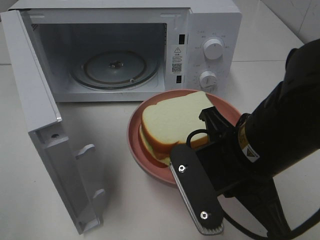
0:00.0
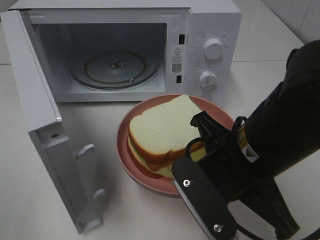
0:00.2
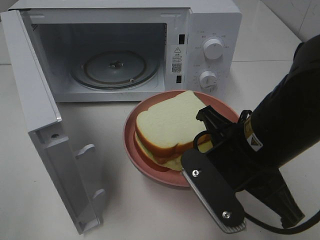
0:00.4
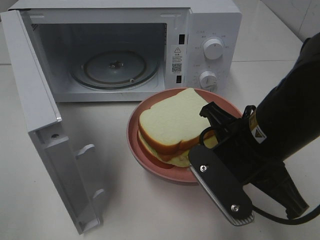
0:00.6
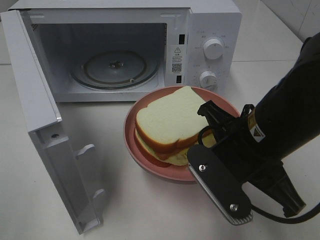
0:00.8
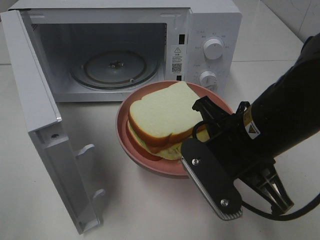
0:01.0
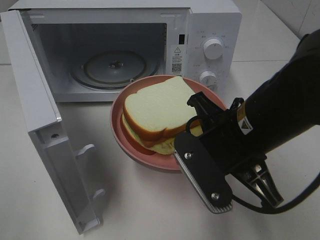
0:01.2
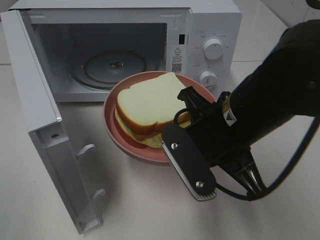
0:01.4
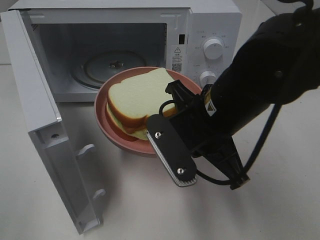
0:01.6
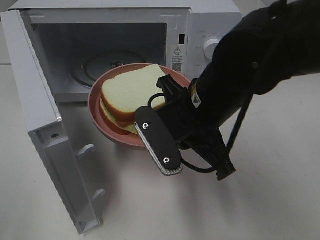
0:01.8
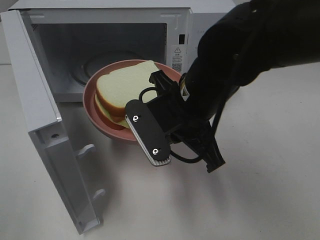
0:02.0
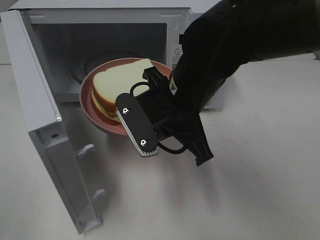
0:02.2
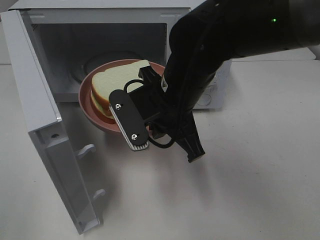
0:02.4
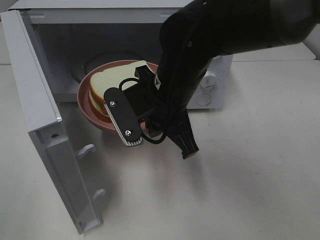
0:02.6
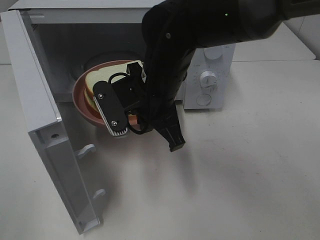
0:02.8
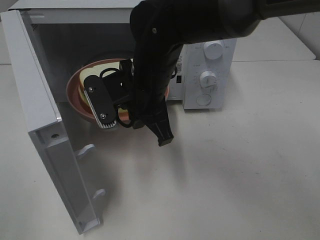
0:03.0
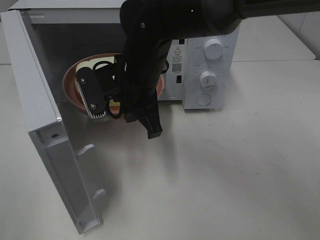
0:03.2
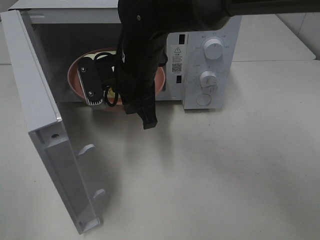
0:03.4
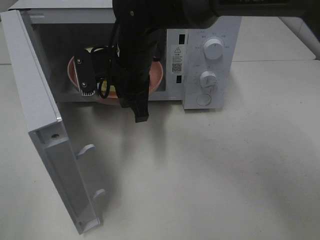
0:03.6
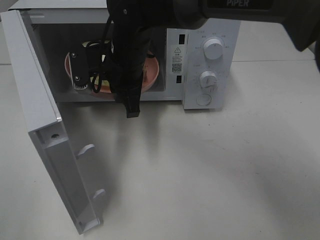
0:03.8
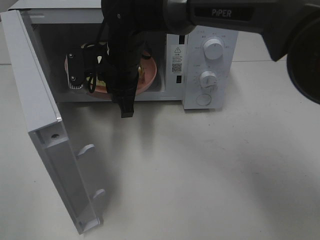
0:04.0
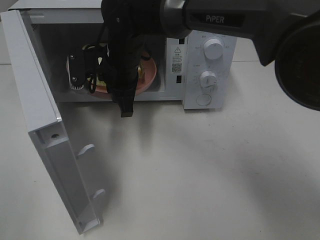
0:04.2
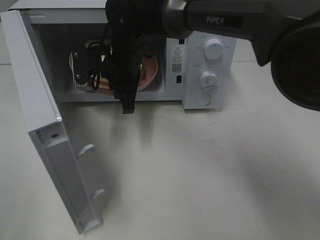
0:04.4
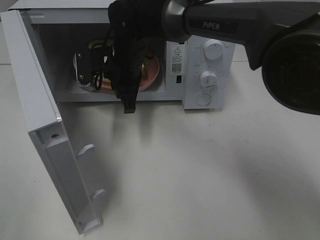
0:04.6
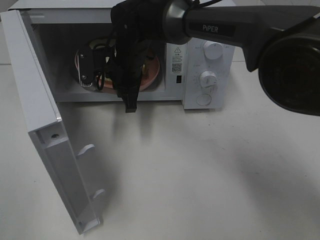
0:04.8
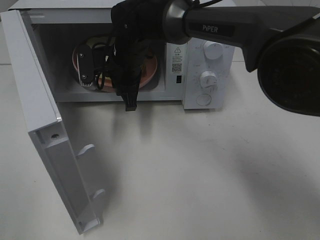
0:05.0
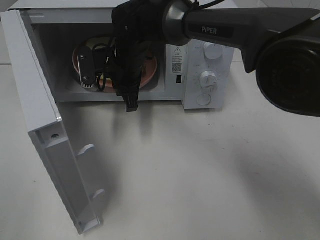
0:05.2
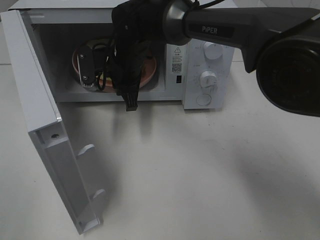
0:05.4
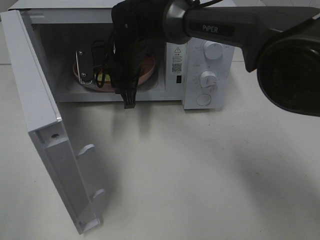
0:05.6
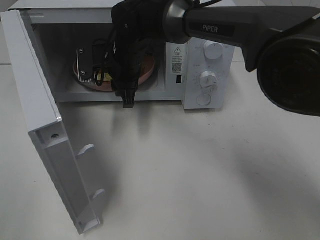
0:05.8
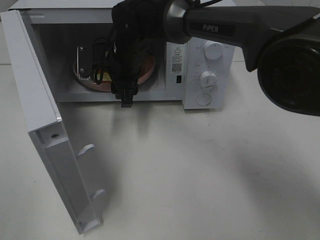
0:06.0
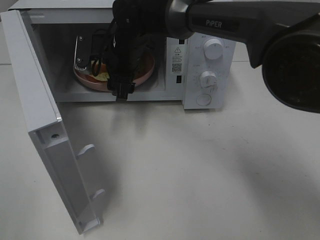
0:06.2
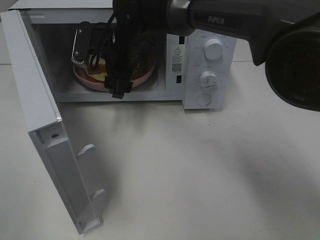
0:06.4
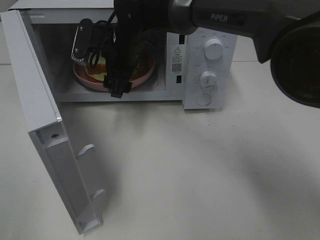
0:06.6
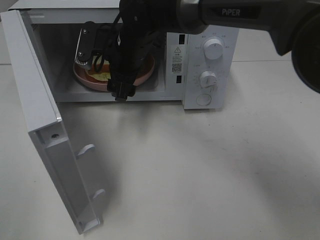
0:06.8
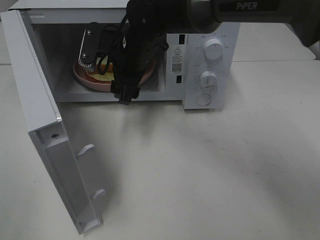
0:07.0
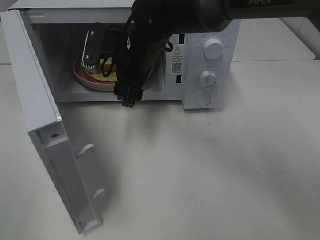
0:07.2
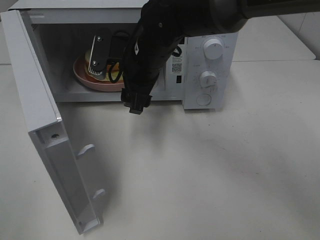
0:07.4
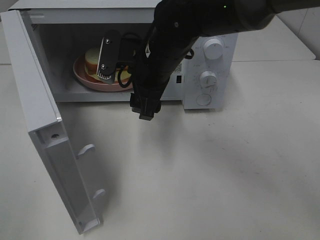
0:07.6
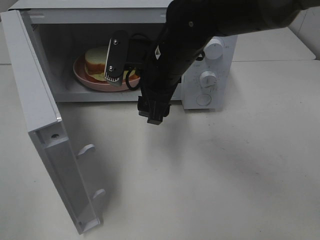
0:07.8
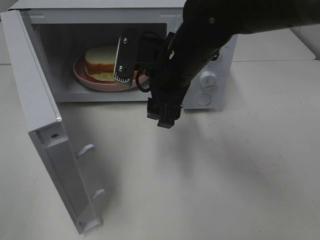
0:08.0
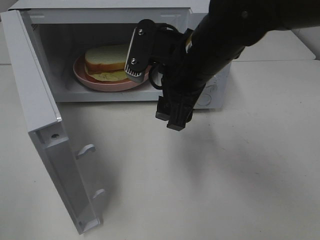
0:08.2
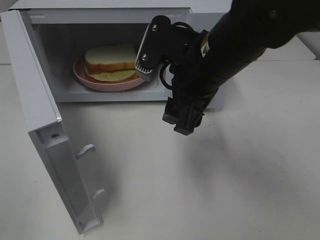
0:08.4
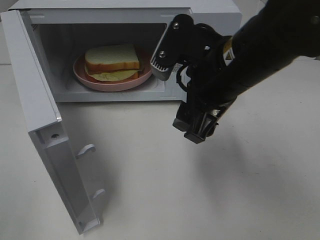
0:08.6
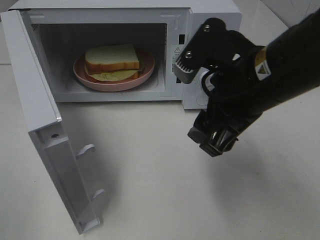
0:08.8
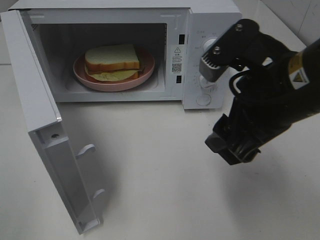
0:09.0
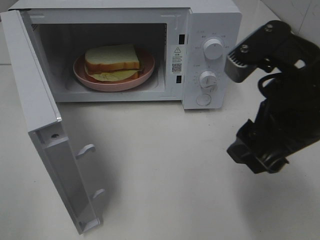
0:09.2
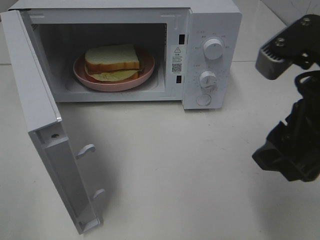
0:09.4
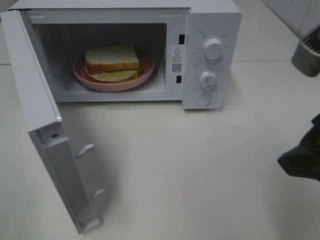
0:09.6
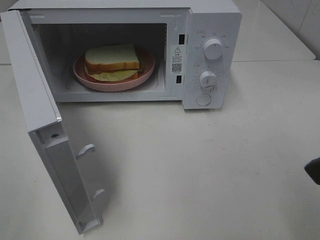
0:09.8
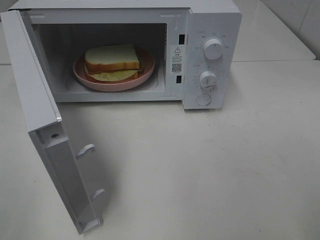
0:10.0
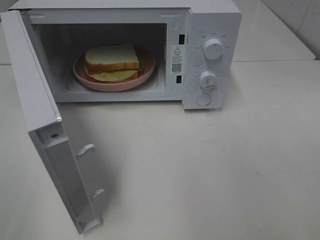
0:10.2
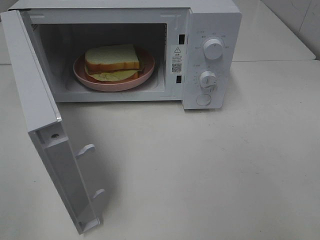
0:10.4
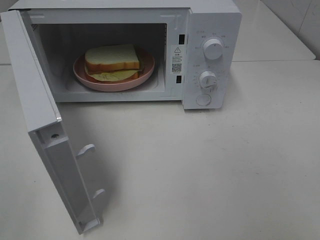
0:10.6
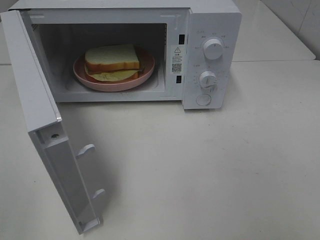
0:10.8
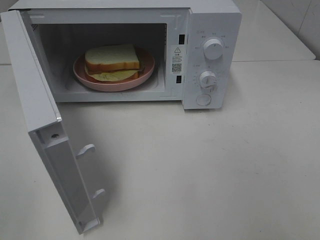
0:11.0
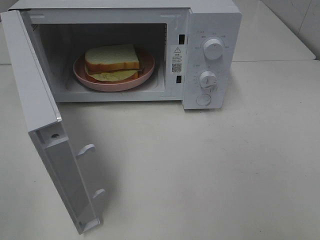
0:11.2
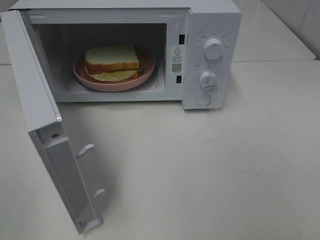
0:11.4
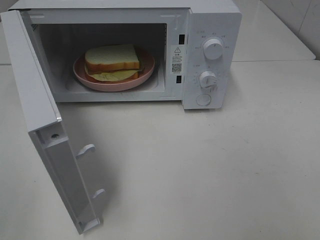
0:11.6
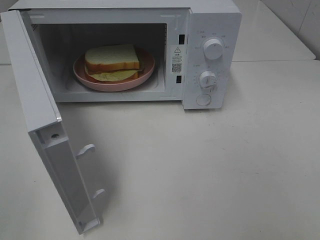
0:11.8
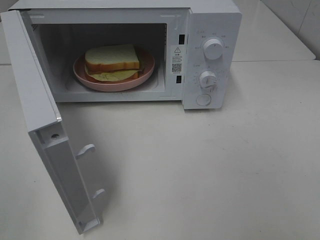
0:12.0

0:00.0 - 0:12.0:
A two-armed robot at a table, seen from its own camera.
Task of the whole recording: Heat Sandwich.
Step, 0:00.0 - 0:07.2: Right hand: place the plate in the microwave.
0:00.0 - 0:01.6: The right gripper heads forward, covering roughly 5 cm.
0:01.6 - 0:03.0: The right gripper travels to the left and forward by roughly 10 cm.
0:03.0 - 0:04.4: The right gripper moves forward, some 10 cm.
0:04.4 - 0:06.0: The right gripper opens up.
0:06.0 - 0:07.6: The right gripper is displaced backward and to the right by some 10 cm.
0:07.6 - 0:09.0: The right gripper shifts approximately 20 cm backward and to the right.
0:09.0 - 0:10.4: The right gripper shifts some 20 cm to the right and backward.

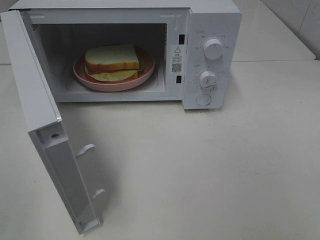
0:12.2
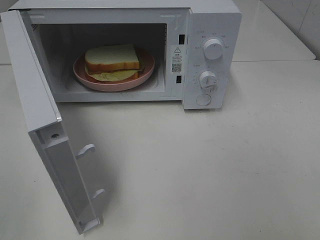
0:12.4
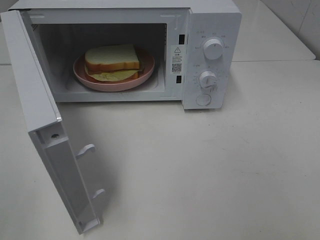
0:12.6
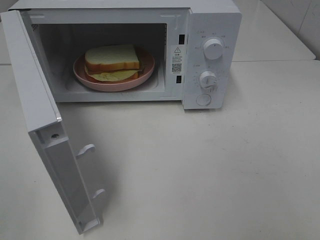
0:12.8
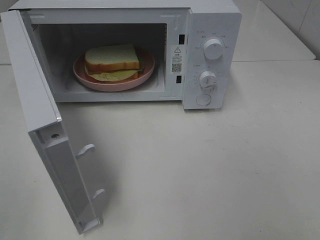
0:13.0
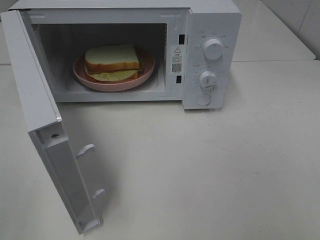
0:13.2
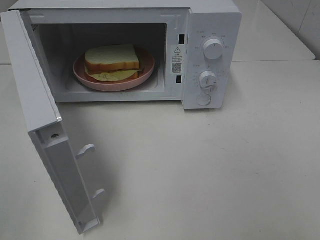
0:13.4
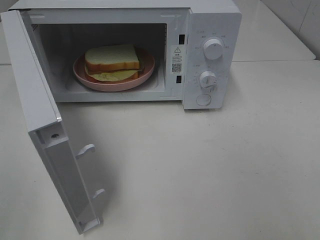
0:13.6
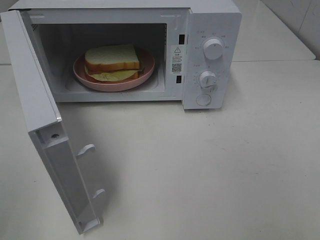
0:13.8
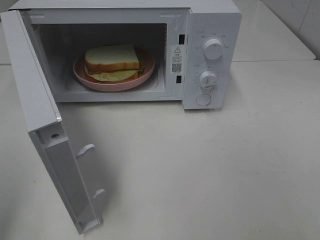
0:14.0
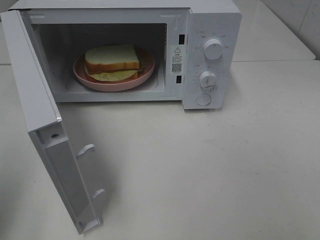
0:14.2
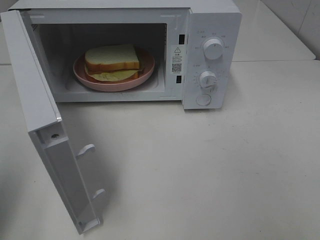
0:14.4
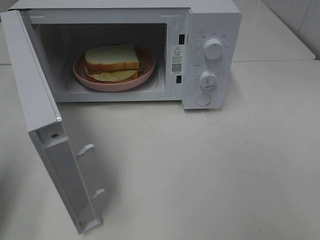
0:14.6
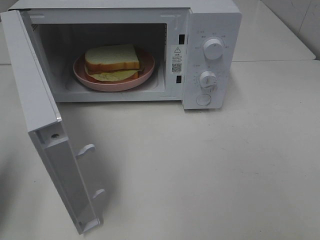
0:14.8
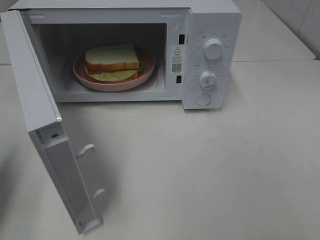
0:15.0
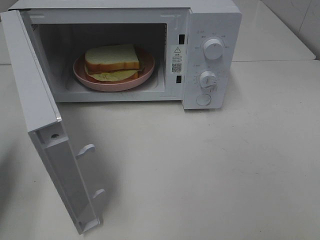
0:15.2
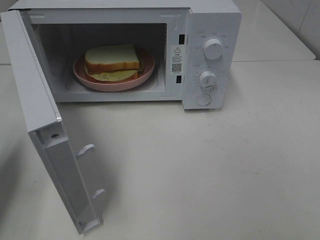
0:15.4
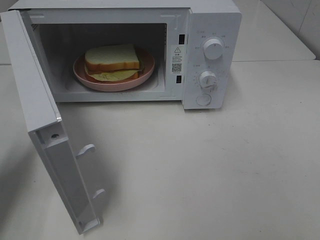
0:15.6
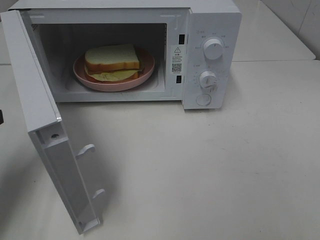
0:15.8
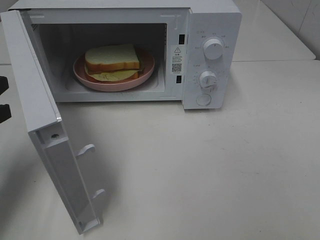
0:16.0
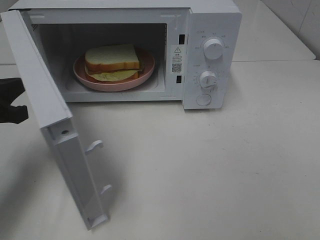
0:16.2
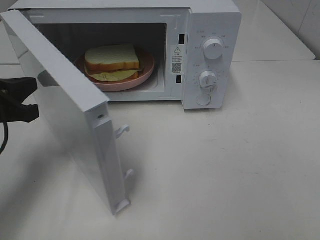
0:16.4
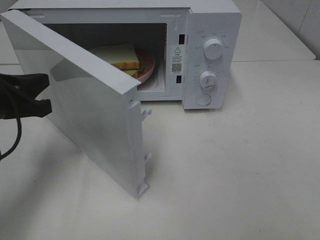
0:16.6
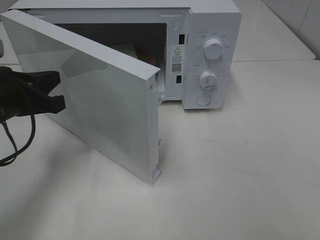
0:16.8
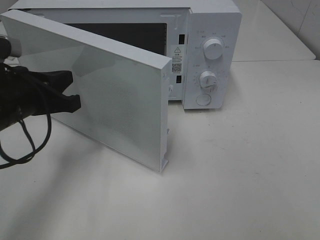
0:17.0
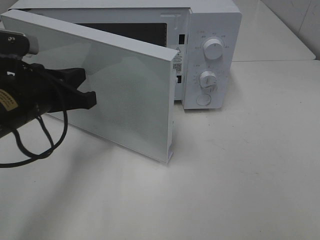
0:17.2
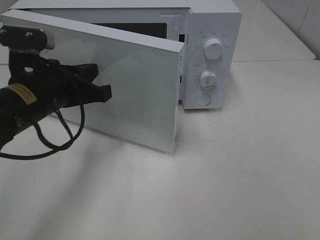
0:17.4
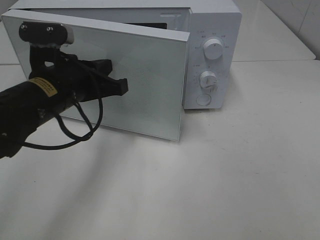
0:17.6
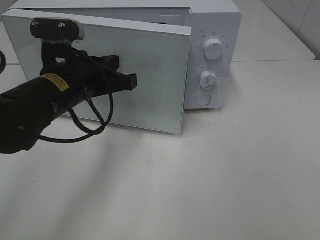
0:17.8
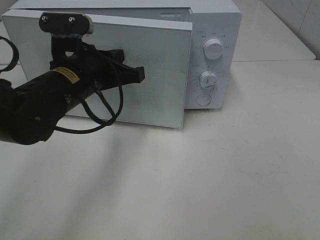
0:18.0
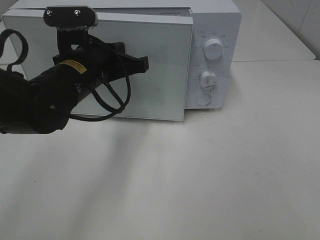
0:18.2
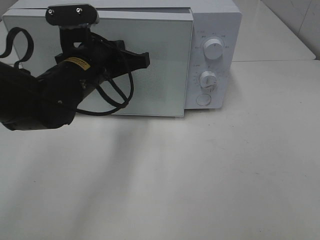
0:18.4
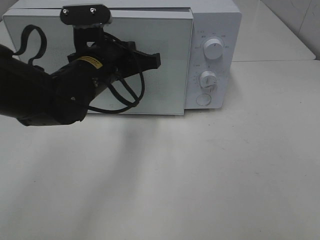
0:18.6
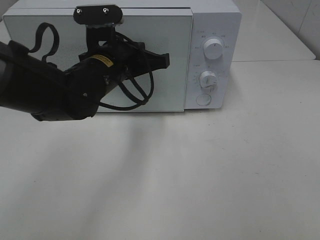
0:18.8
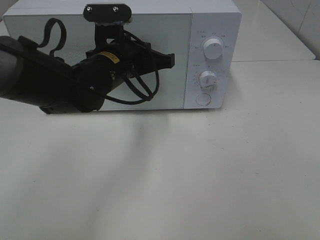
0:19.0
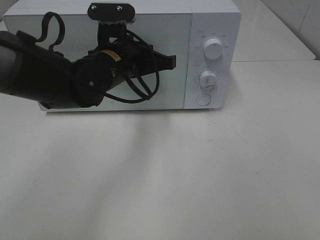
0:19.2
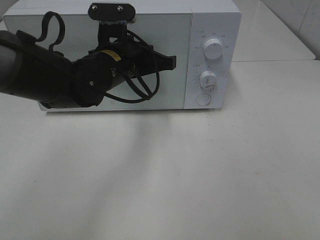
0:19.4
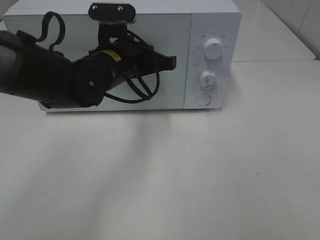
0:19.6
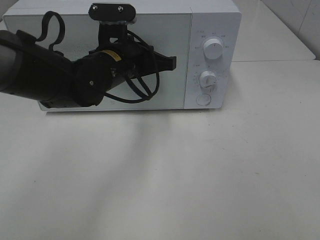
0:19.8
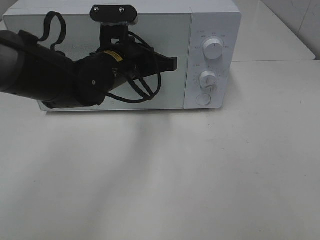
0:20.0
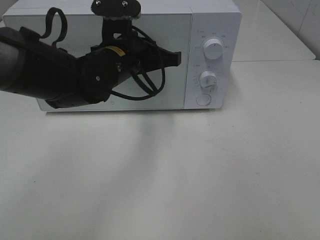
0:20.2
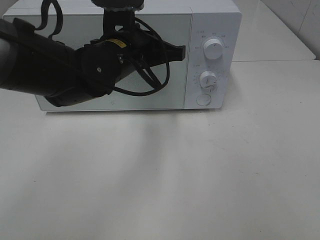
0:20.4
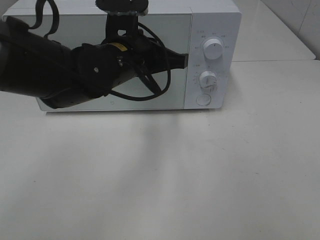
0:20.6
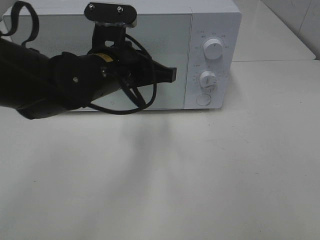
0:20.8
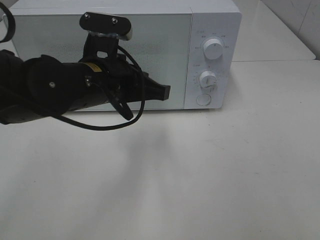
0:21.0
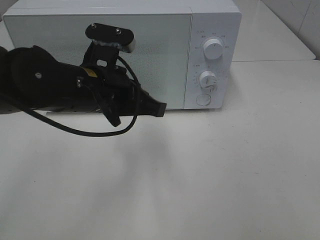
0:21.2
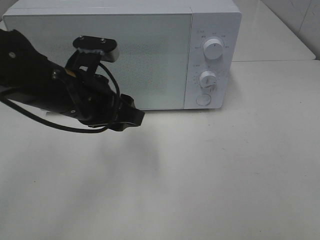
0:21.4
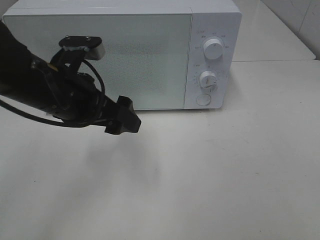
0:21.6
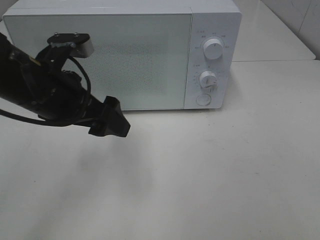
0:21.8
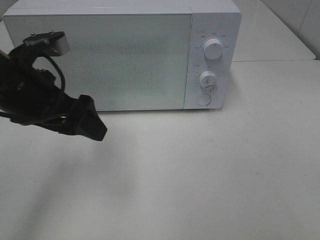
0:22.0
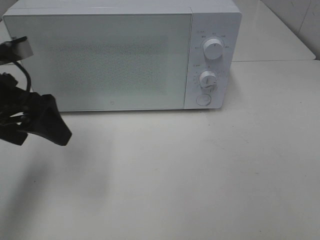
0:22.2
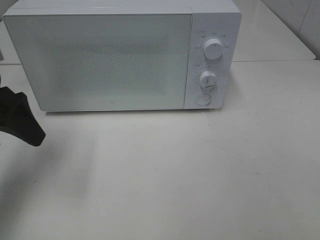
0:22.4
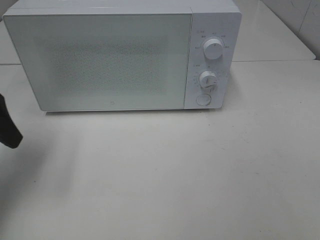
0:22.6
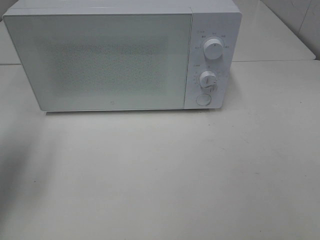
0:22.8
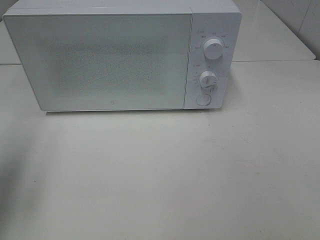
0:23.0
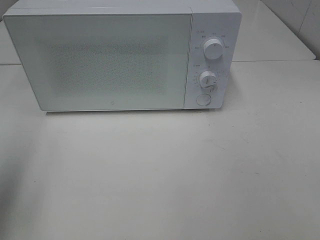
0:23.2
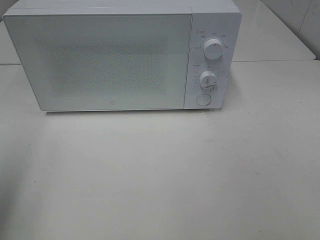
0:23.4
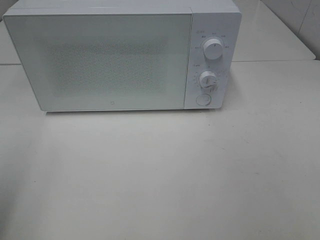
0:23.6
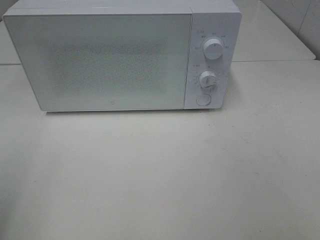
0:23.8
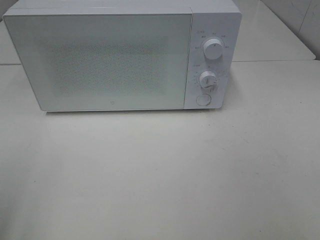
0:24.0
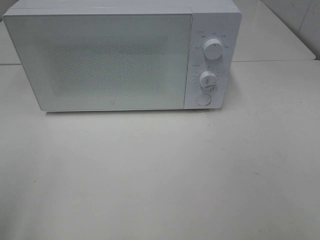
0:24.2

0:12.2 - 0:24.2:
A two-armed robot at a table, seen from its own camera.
Task of the whole recording: Heat Sandwich.
Step, 0:12.2 - 0:20.4: Left hand: close the microwave door.
0:13.8 - 0:15.2: The left gripper goes roughly 20 cm forward and downward, and closes.
0:15.2 - 0:16.6: The left gripper goes some 10 cm to the right and forward.
0:16.6 - 0:18.2: The left gripper shifts some 15 cm to the right and forward.
0:18.2 - 0:19.8: The left gripper changes place by about 5 cm.
0:19.8 - 0:21.2: The left gripper is displaced backward by some 10 cm.
0:21.2 - 0:22.6: The left gripper is displaced to the left by approximately 20 cm, and opens.
0:22.6 - 0:24.2: The left gripper shifts some 20 cm backward.
